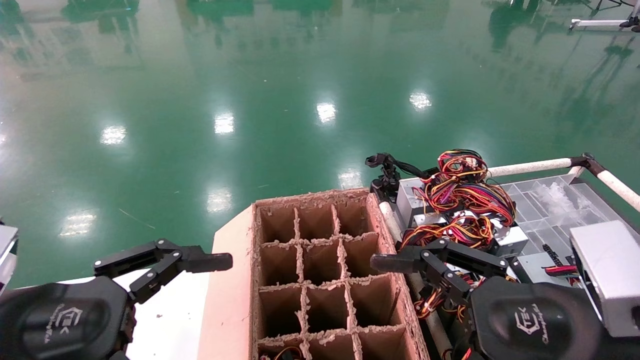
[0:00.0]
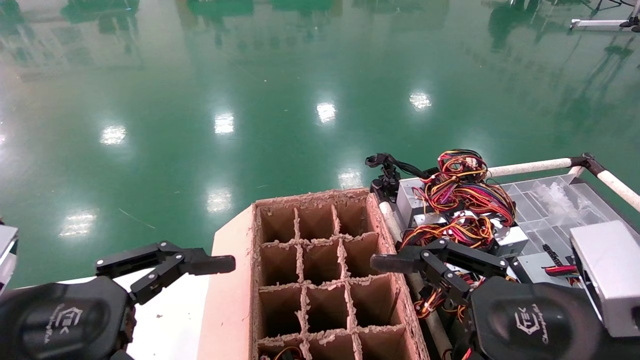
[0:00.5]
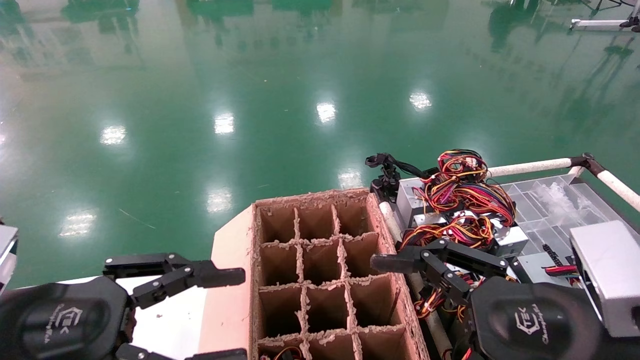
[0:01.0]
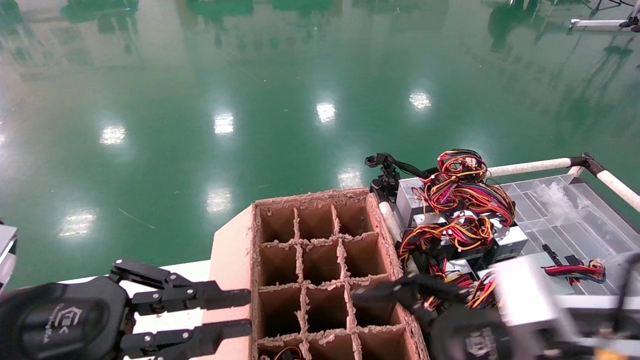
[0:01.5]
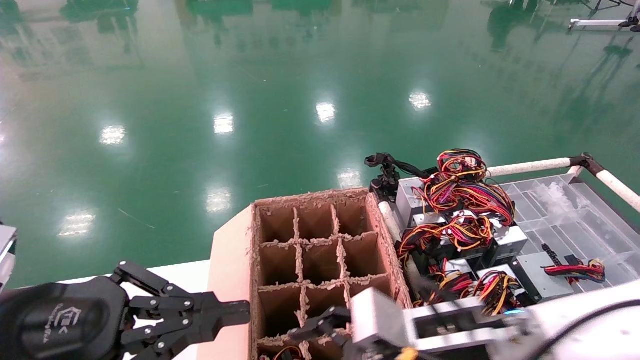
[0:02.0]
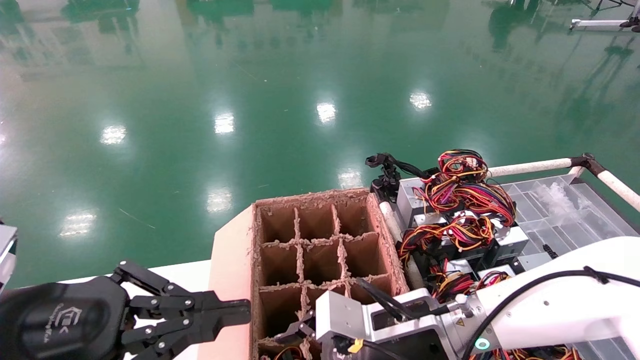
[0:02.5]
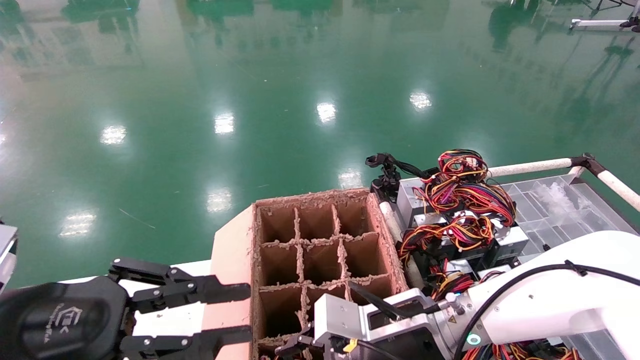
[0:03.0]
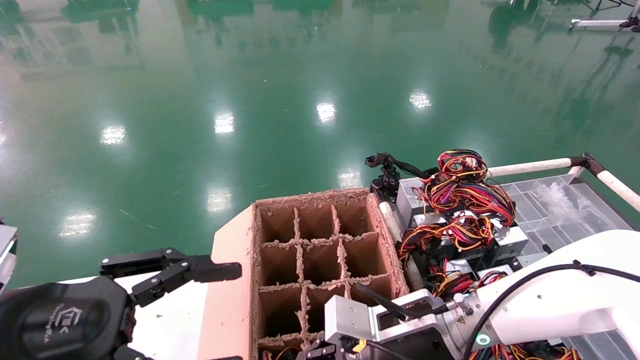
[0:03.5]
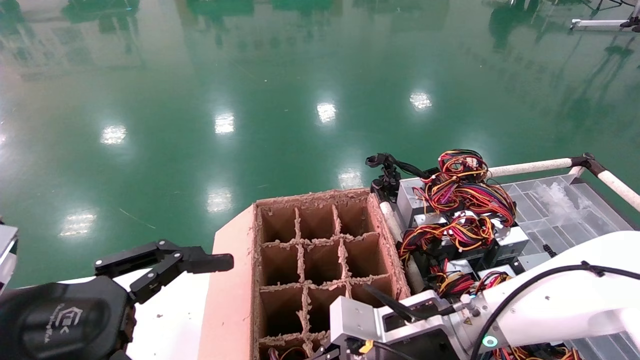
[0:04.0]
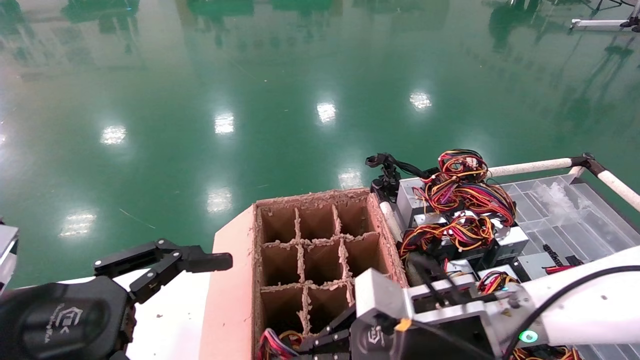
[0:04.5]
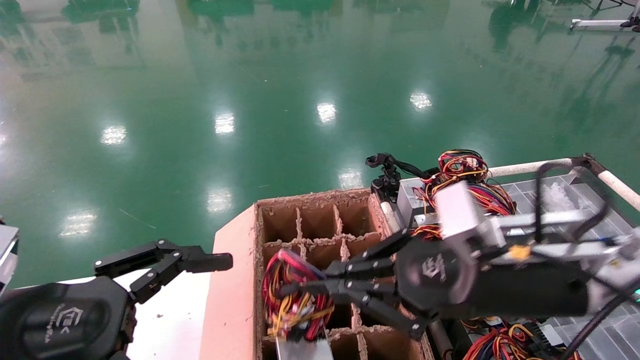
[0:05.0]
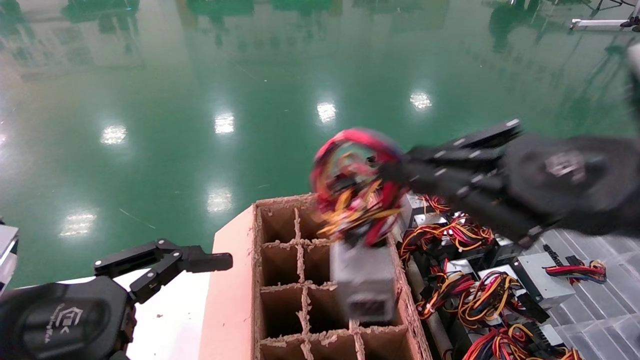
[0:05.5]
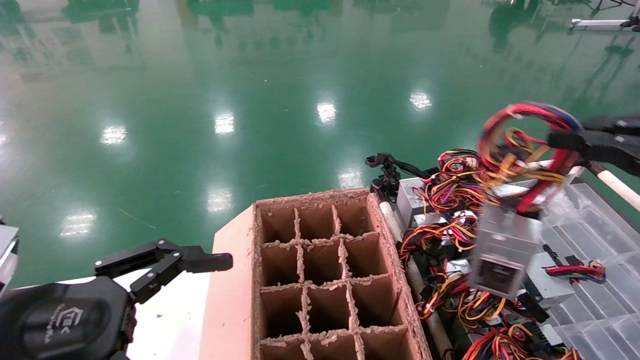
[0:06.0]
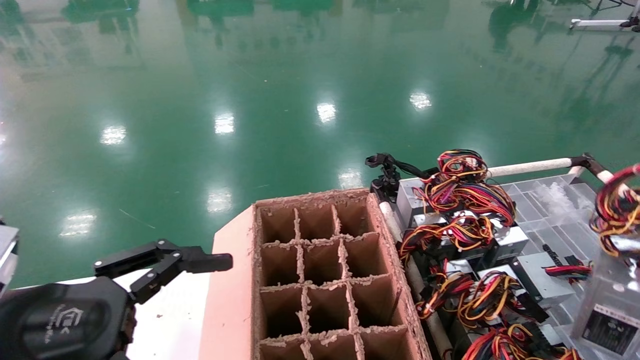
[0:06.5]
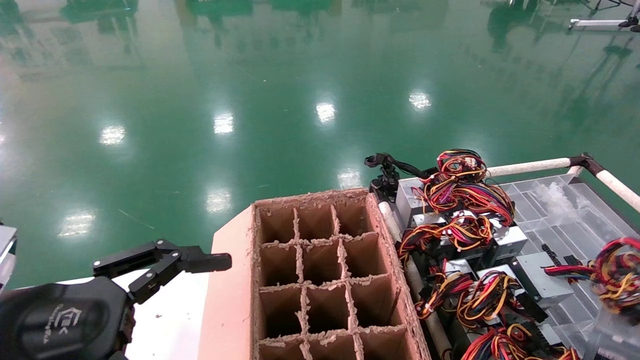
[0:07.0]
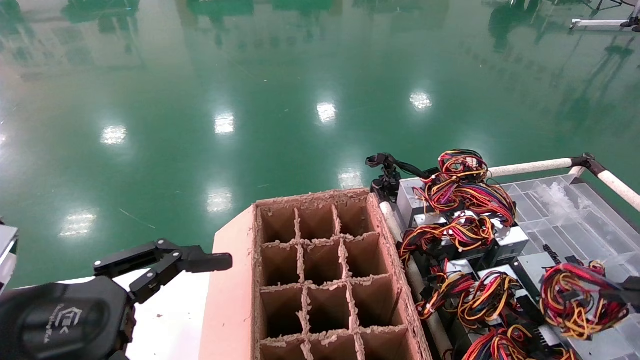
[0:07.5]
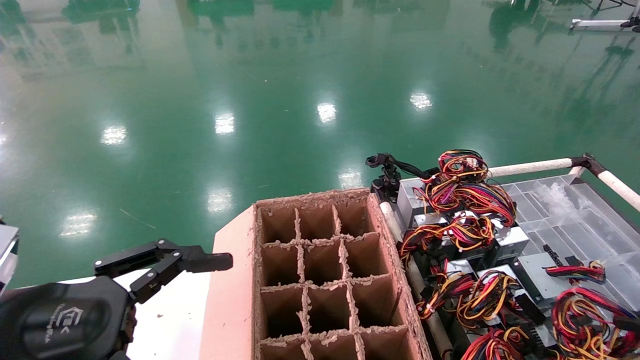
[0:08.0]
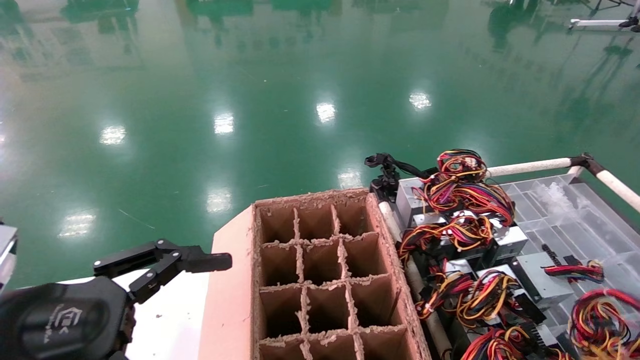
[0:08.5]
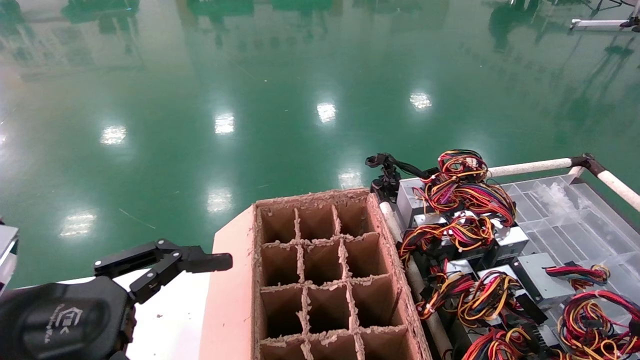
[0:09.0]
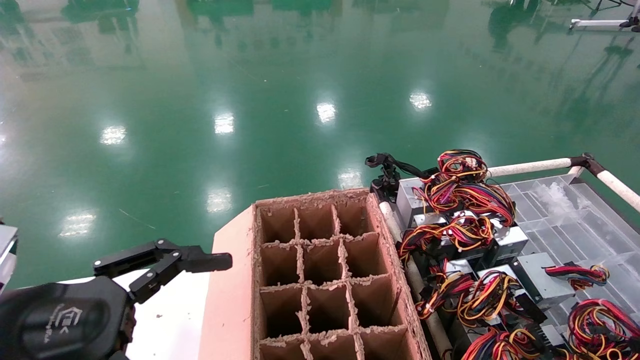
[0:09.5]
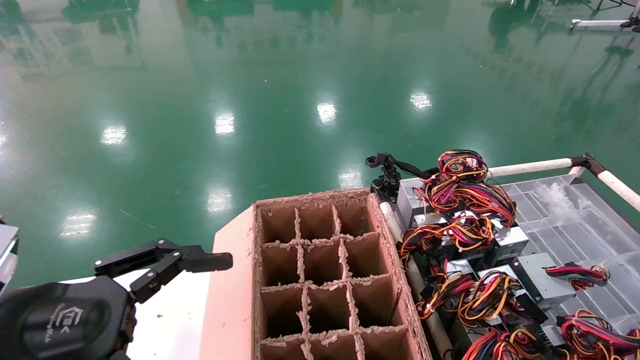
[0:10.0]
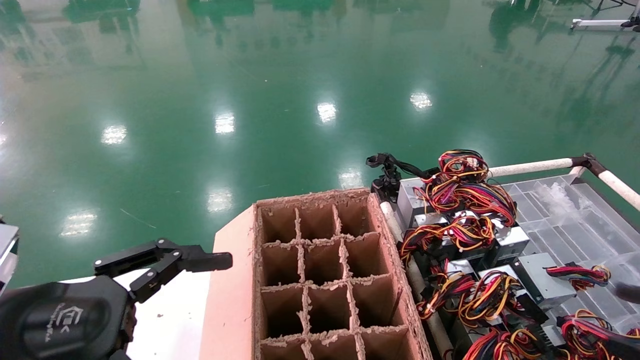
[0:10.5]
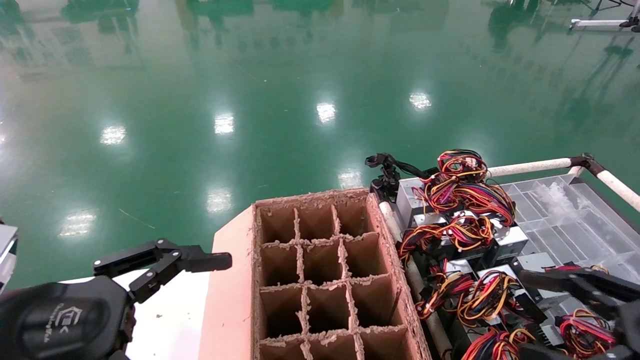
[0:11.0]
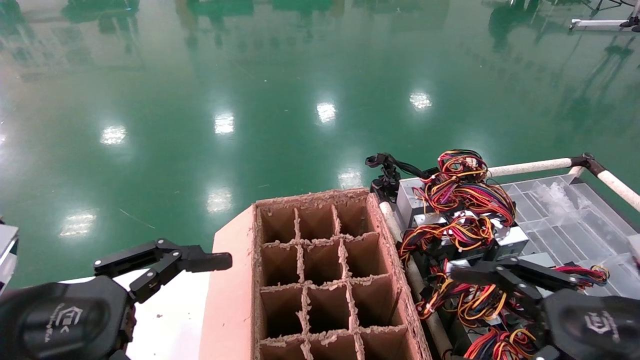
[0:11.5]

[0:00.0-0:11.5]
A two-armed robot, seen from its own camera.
Step, 0:02.0 to 0:04.0: Grab and lift the power supply from the large box.
Step, 0:04.5 to 0:09.5: Place the power supply on the operating table.
0:00.0 to 0:02.0: The right gripper travels forward, to the left and downward by roughly 15 cm. Meanwhile the left gripper closes.
0:02.0 to 0:04.0: The right gripper changes place by about 5 cm, and closes, while the left gripper opens up.
0:04.0 to 0:06.0: The right gripper is displaced to the right, upward and backward by about 40 cm.
0:06.0 to 0:07.5: The right gripper moves downward and to the right, about 10 cm.
0:07.5 to 0:09.5: The right gripper heads downward and to the right, covering some 15 cm.
0:09.5 to 0:11.5: The right gripper travels to the left by approximately 20 cm, and opens its fingers.
